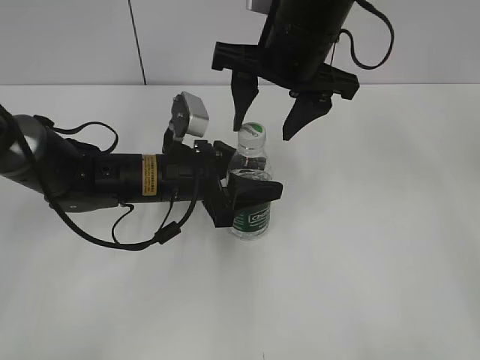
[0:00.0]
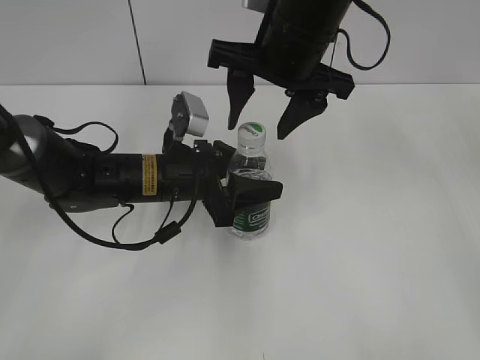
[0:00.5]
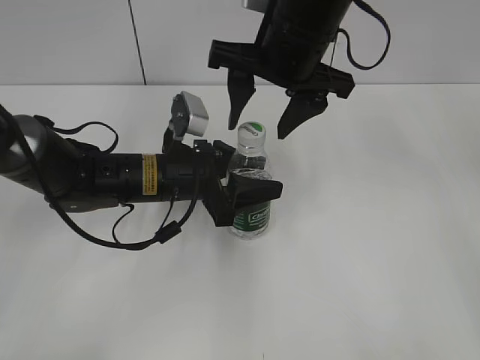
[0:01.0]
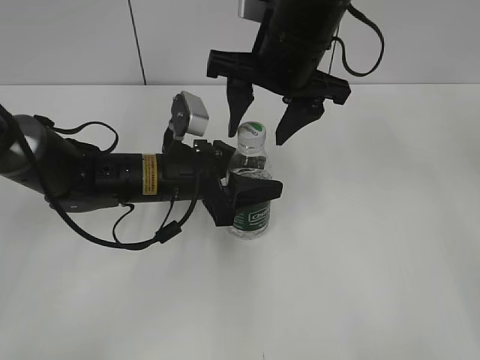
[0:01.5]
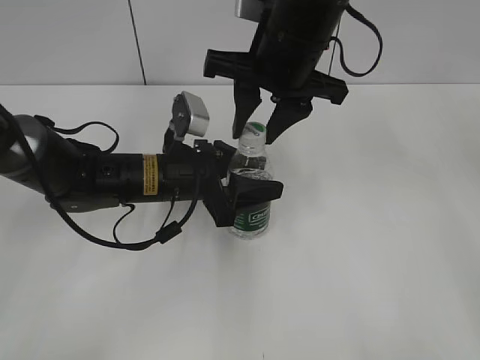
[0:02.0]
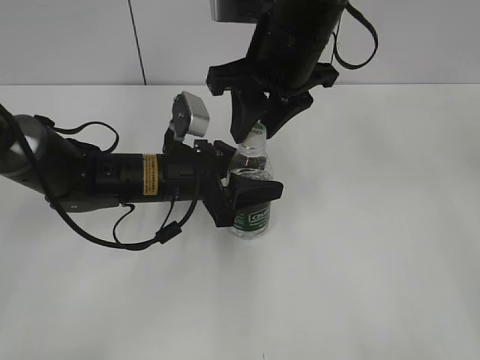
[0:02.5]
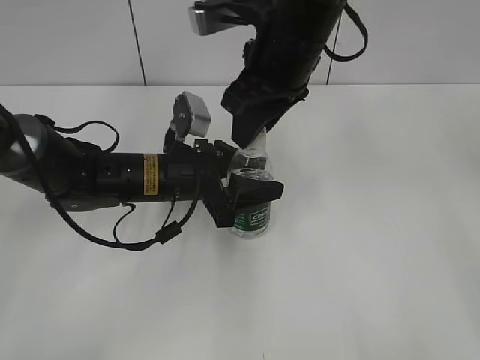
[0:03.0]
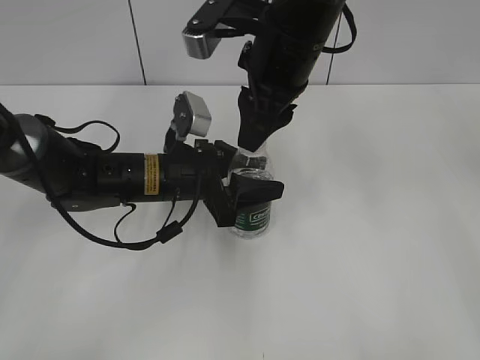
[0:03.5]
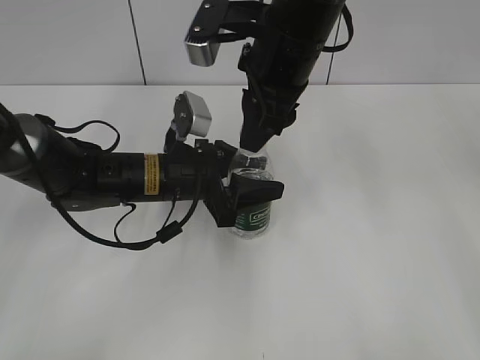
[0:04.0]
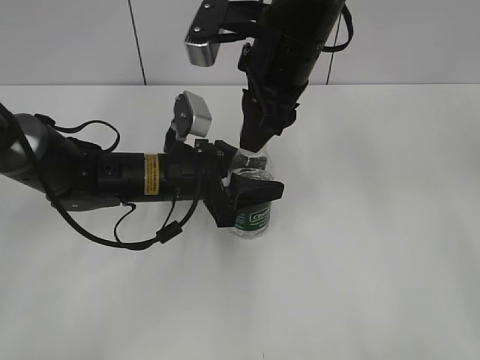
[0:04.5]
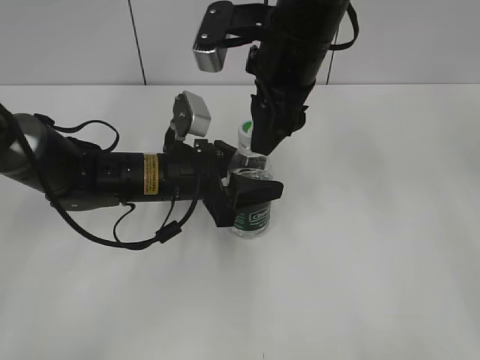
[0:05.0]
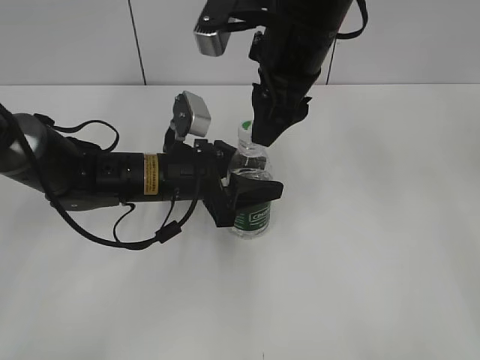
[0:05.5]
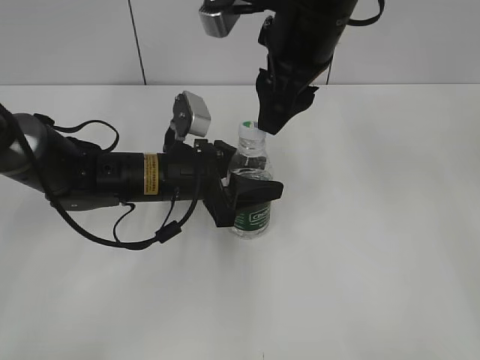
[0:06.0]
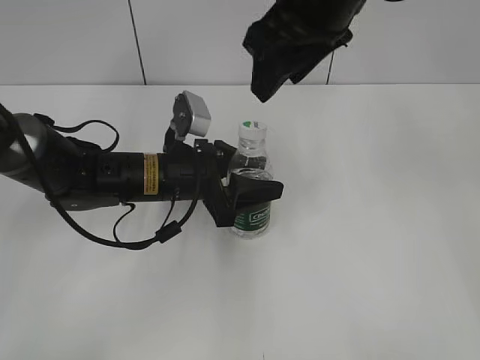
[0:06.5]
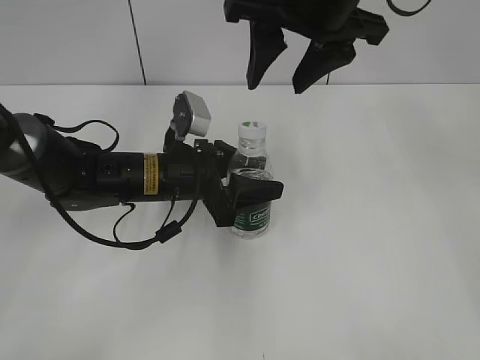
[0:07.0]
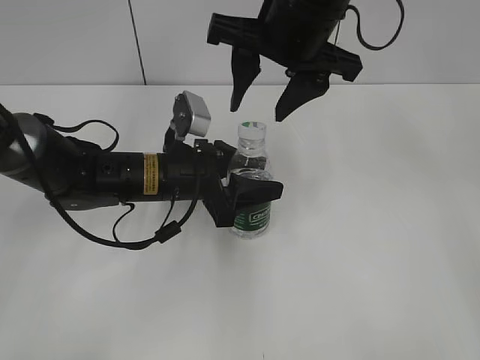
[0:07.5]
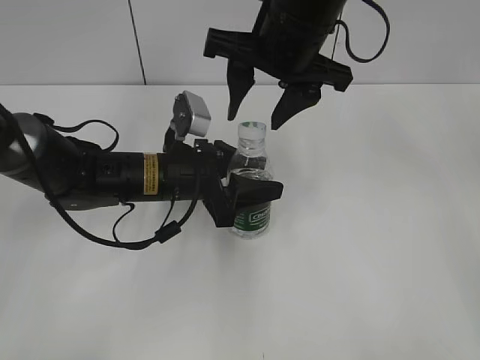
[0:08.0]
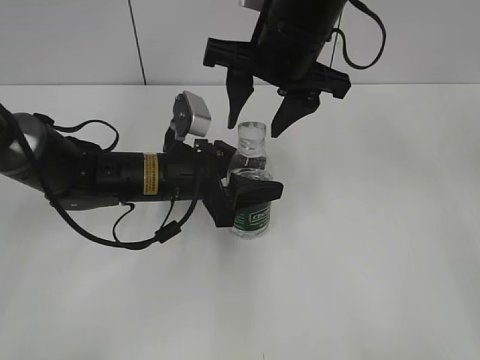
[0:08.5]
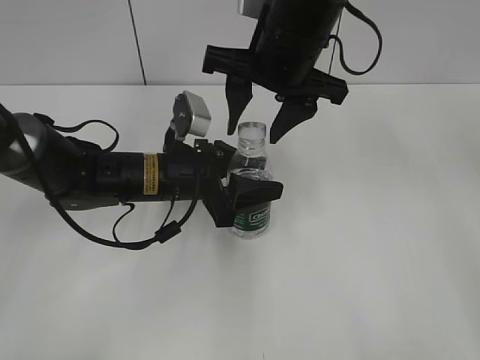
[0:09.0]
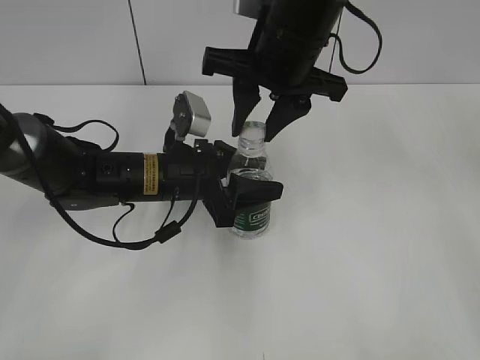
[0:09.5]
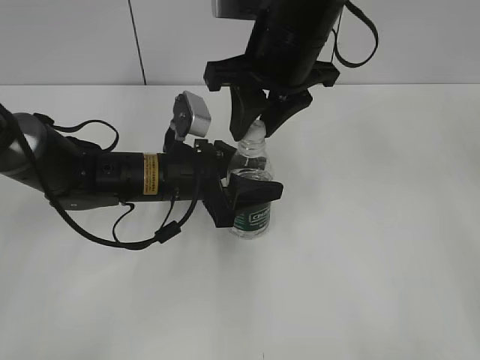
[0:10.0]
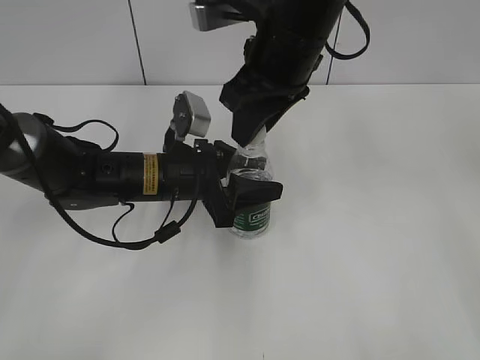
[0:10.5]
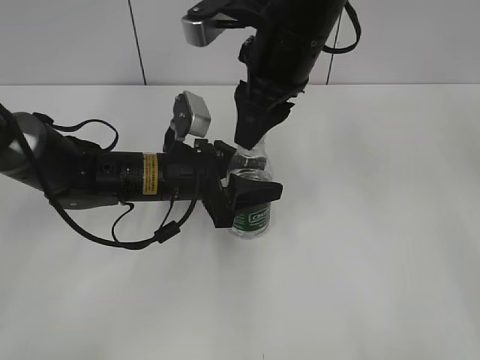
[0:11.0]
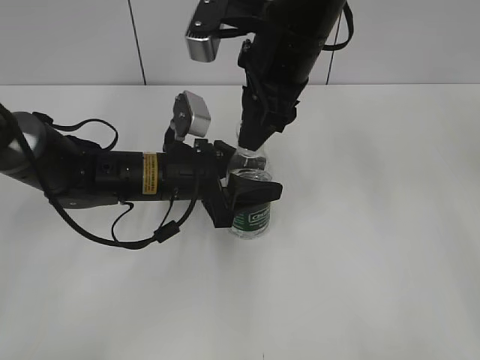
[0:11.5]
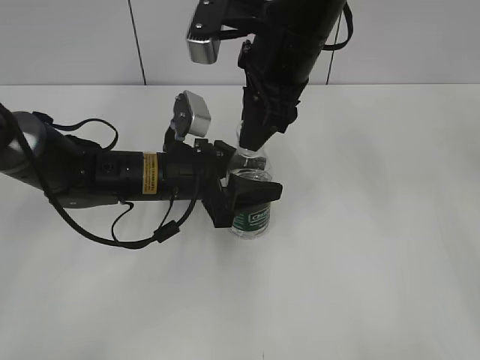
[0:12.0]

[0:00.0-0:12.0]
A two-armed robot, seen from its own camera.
0:00.0 to 0:02.0: The right gripper closes up.
0:04.0 to 0:06.0: The right gripper opens its fingers.
0:08.0 to 0:10.0: The right gripper closes up.

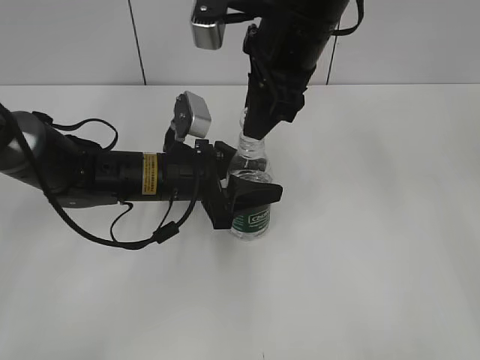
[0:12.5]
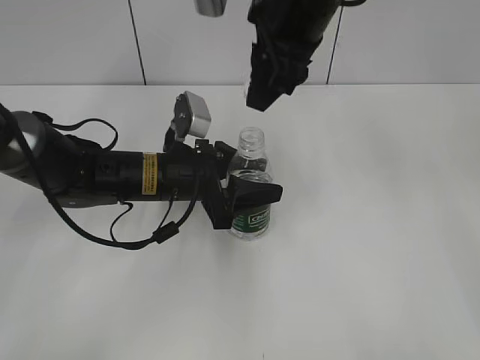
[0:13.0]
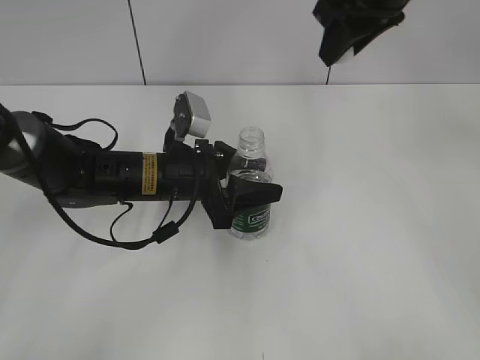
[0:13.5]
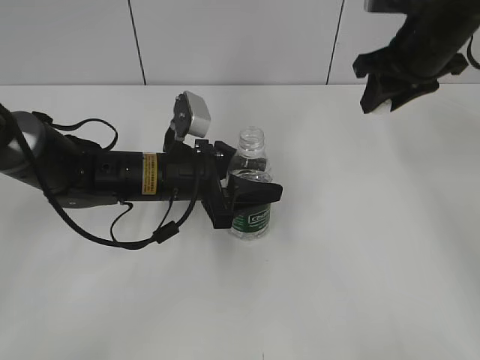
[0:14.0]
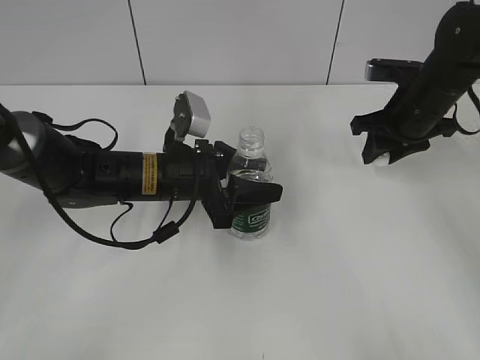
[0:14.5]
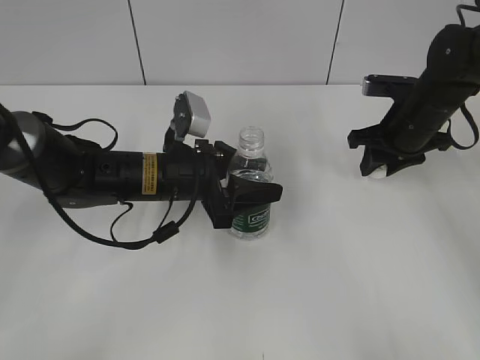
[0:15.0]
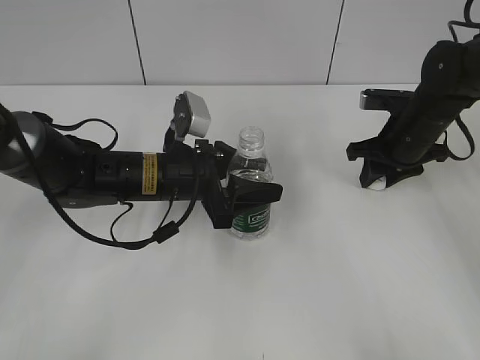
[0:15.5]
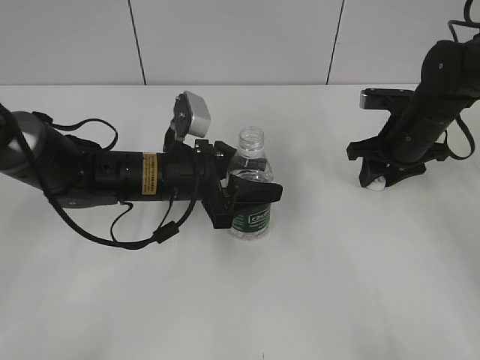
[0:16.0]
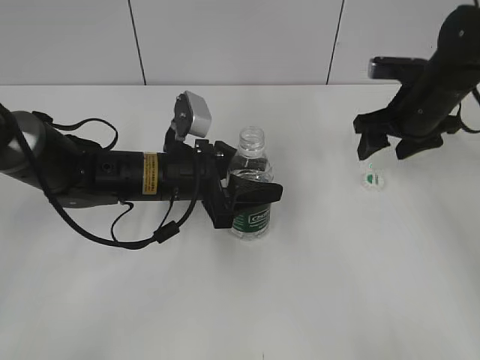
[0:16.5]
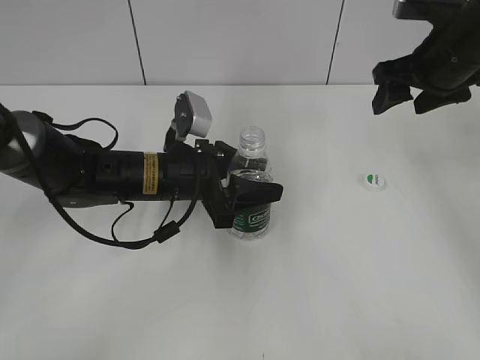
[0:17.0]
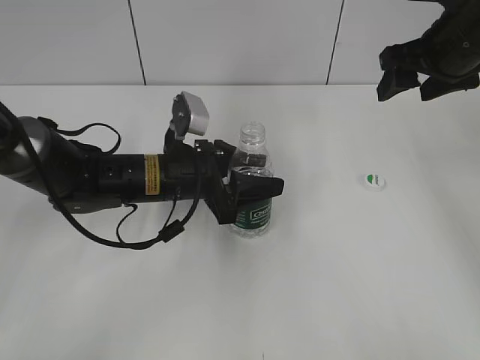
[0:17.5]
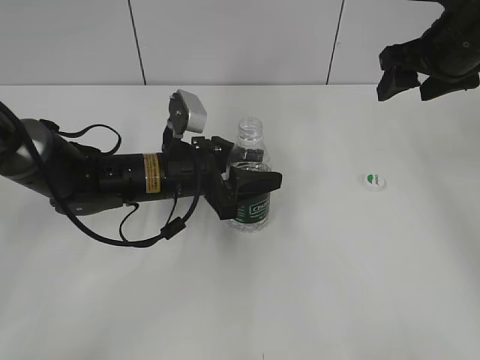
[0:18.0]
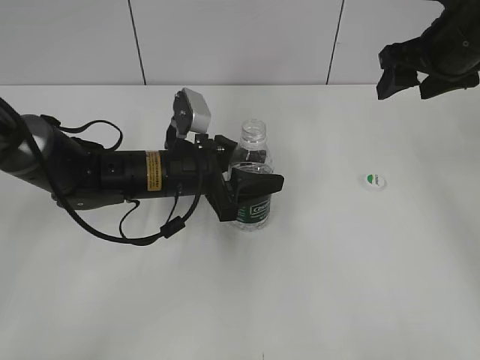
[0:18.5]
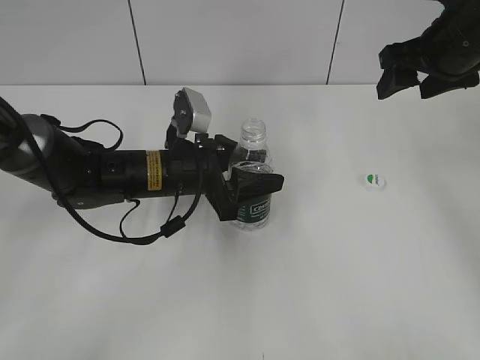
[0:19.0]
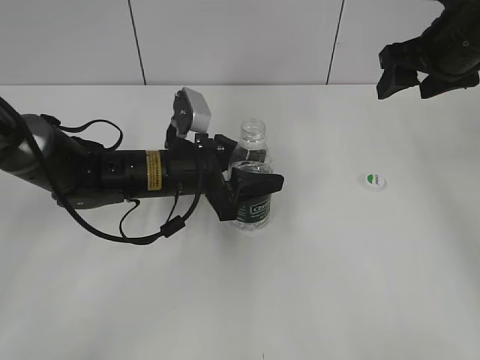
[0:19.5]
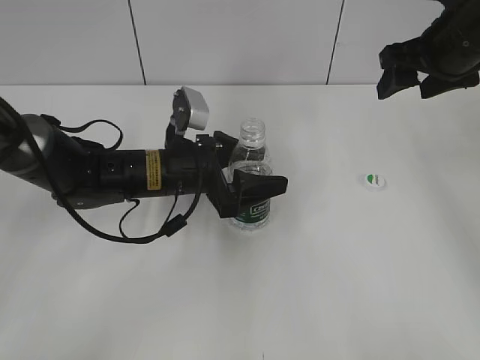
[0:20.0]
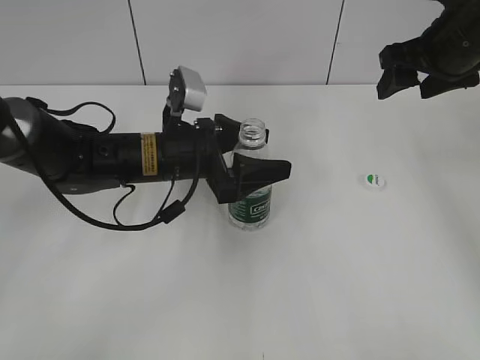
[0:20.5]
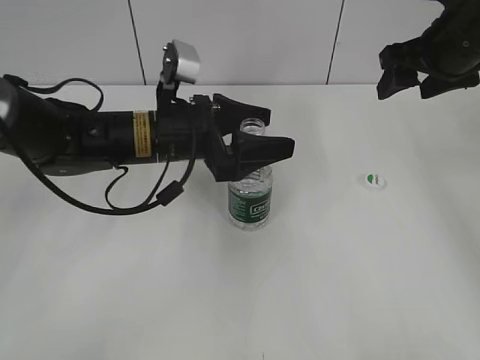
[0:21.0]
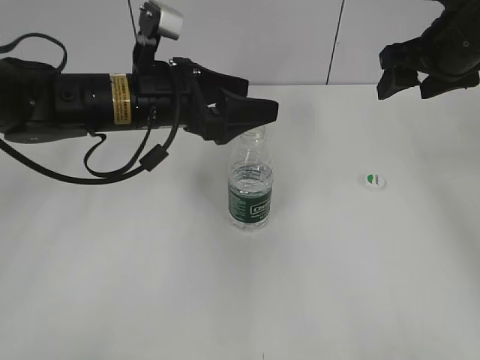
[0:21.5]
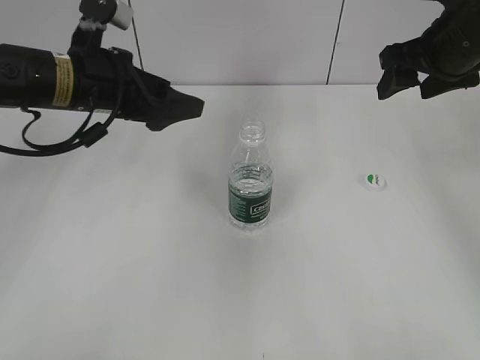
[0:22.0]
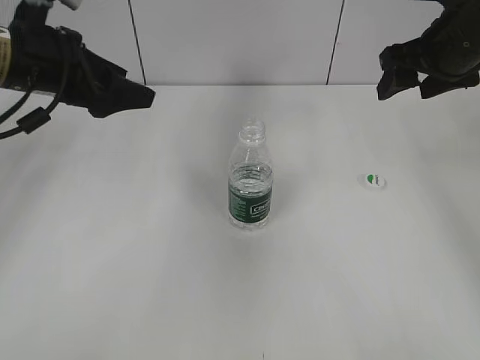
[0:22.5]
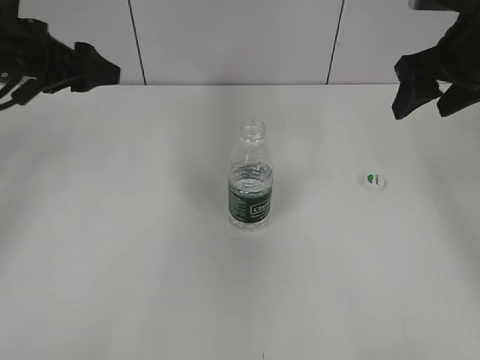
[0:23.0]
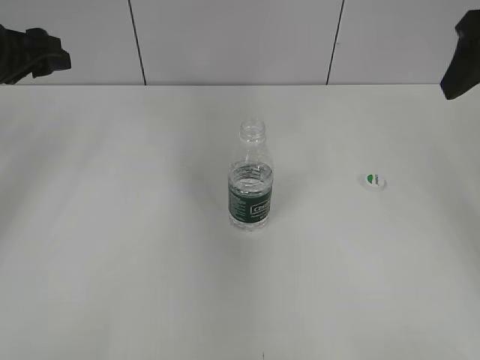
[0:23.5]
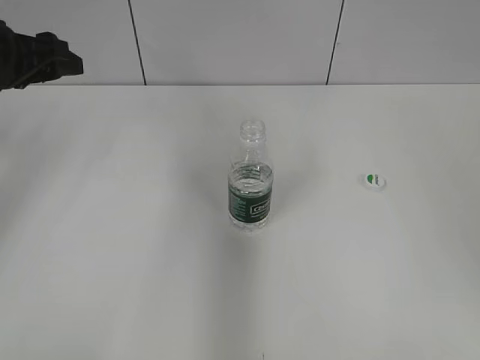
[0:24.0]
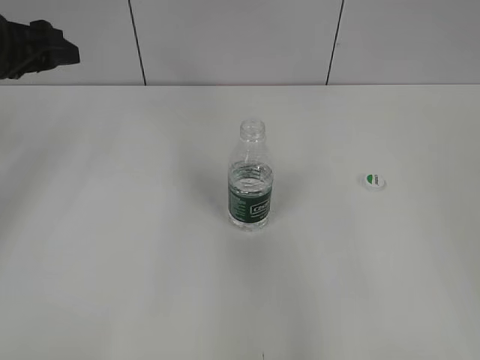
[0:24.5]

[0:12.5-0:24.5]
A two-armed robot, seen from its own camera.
Step, 0:13.0 to 0:16.0: Place the bottle cap on the table with the right gripper.
0:12.5 to 0:14.5: The right gripper moves to the right, downward and forward, about 25 cm.
0:14.5 to 0:16.5: The right gripper opens.
0:16.5 to 0:18.5: The right gripper is displaced upward by roughly 10 cm.
0:18.5 to 0:20.5: The left gripper opens up.
0:20.5 to 0:22.5: The left gripper shifts some 15 cm to the left and upward.
0:22.5 to 0:24.5: The left gripper shifts some 5 cm to the left. Meanwhile the right gripper shifts approximately 30 cm backward.

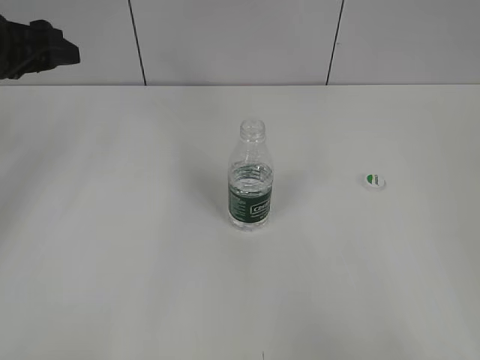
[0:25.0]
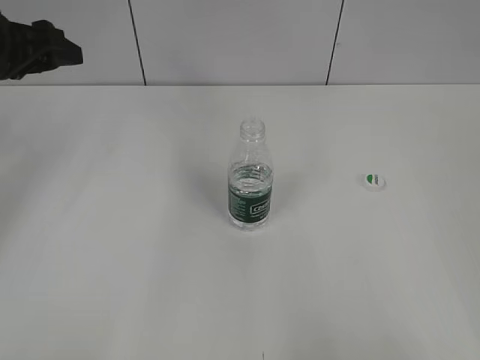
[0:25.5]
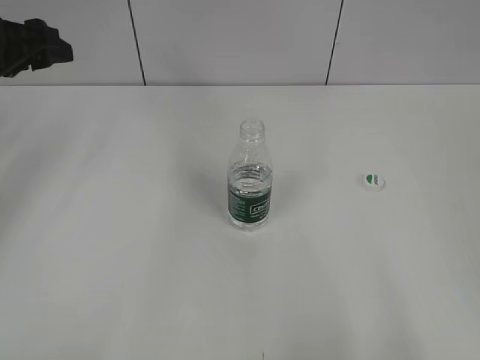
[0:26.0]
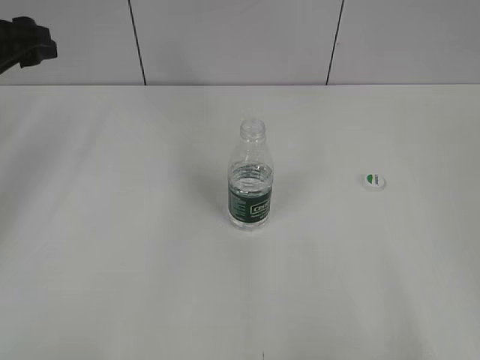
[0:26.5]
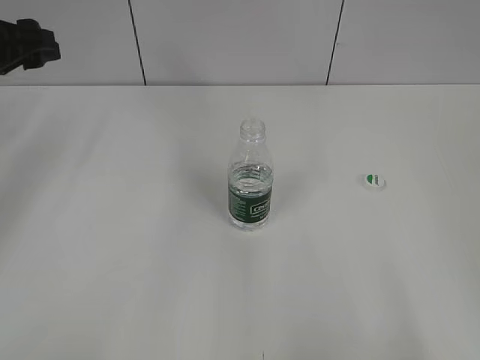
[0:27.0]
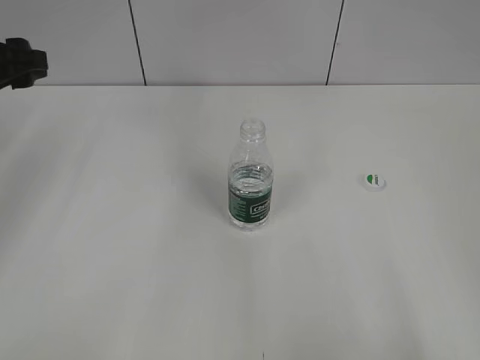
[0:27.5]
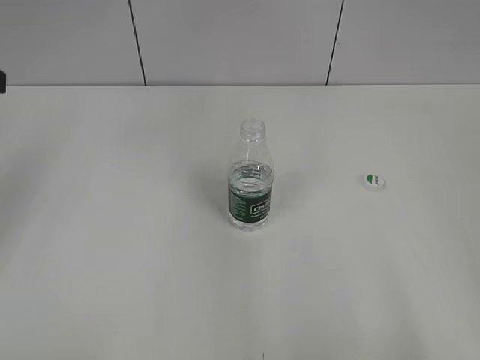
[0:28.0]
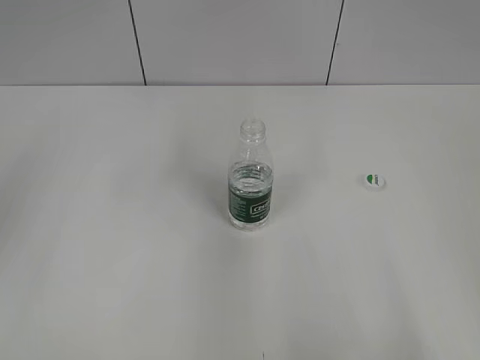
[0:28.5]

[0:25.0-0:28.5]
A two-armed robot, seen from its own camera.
0:27.0 to 0:28.5: The left gripper shifts some 15 cm backward.
